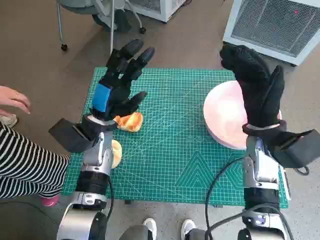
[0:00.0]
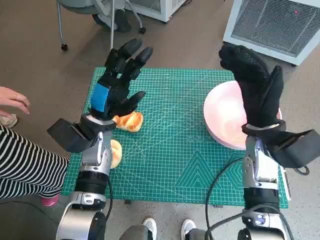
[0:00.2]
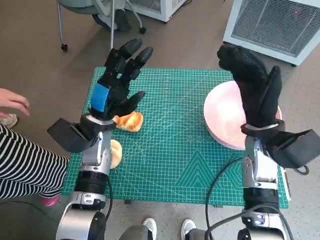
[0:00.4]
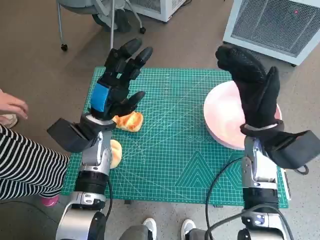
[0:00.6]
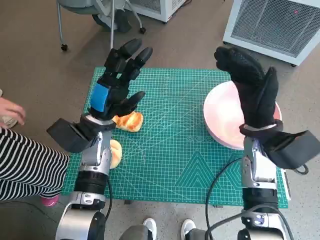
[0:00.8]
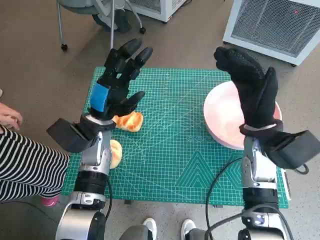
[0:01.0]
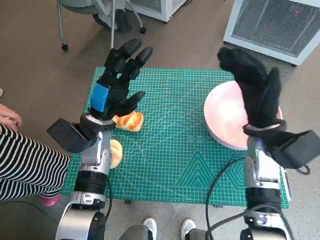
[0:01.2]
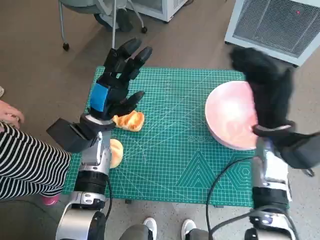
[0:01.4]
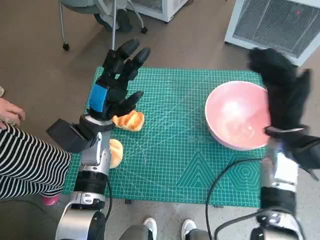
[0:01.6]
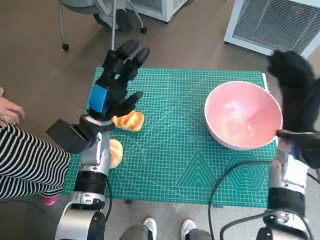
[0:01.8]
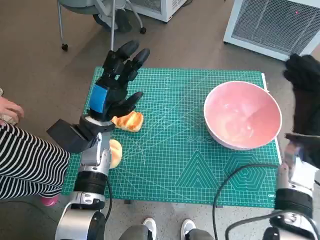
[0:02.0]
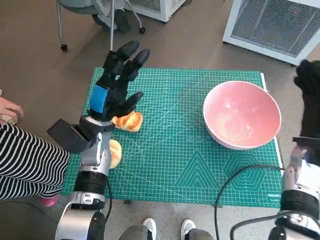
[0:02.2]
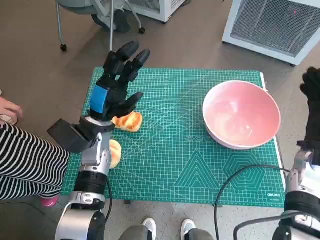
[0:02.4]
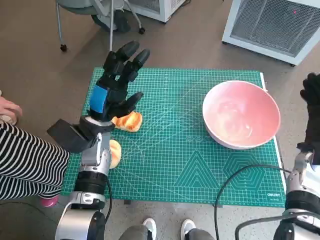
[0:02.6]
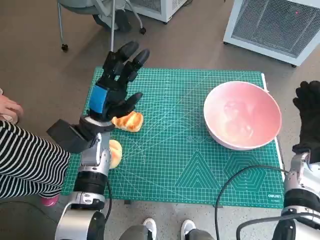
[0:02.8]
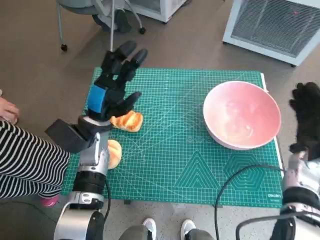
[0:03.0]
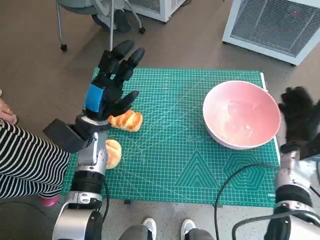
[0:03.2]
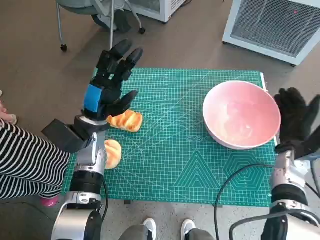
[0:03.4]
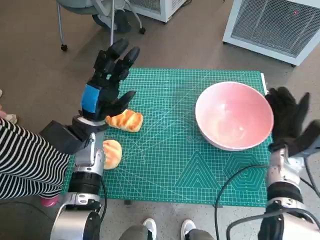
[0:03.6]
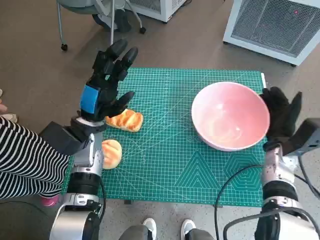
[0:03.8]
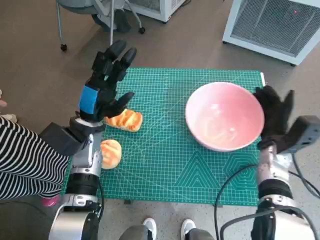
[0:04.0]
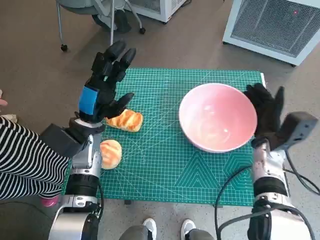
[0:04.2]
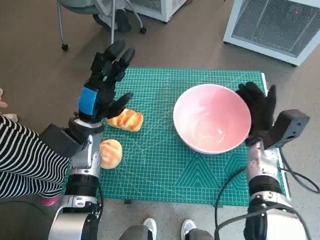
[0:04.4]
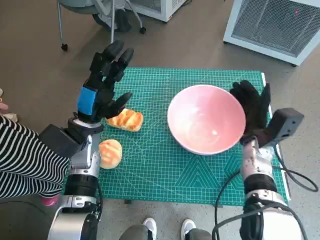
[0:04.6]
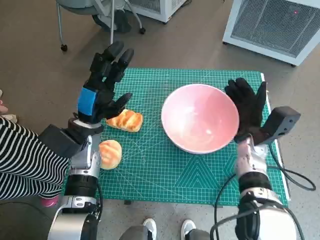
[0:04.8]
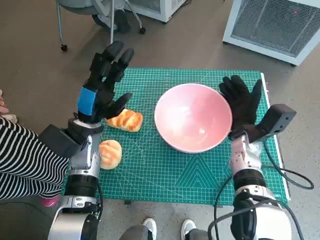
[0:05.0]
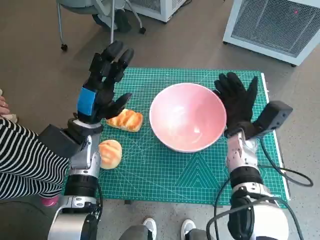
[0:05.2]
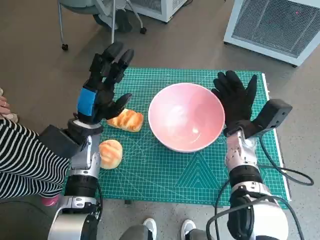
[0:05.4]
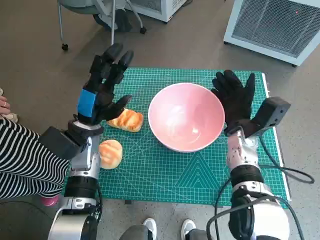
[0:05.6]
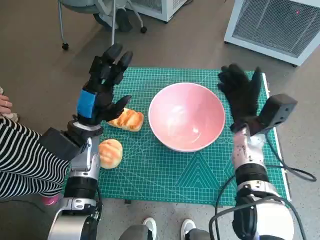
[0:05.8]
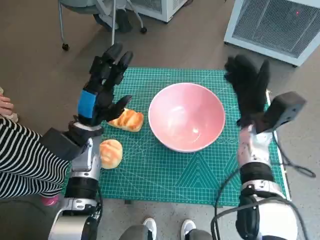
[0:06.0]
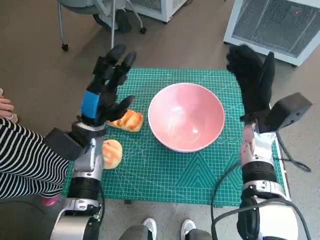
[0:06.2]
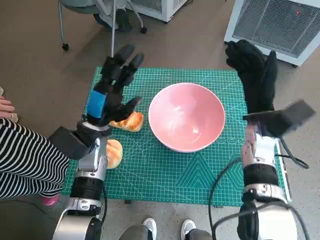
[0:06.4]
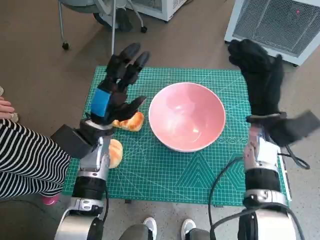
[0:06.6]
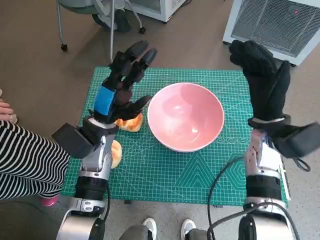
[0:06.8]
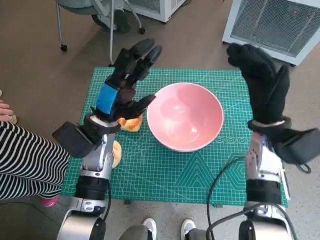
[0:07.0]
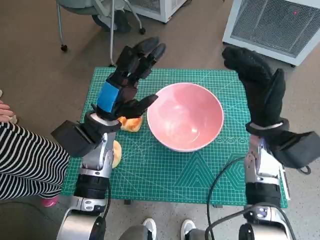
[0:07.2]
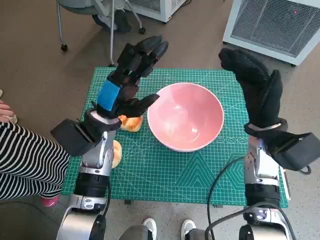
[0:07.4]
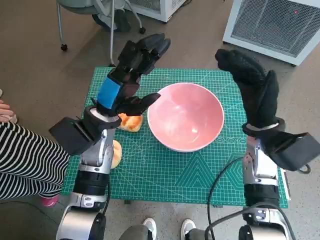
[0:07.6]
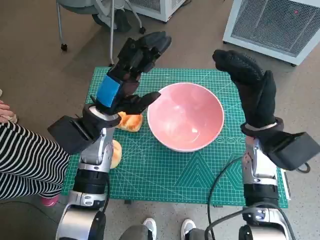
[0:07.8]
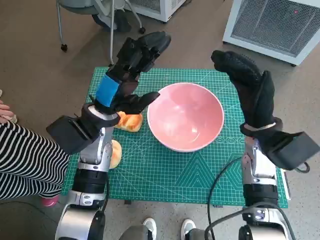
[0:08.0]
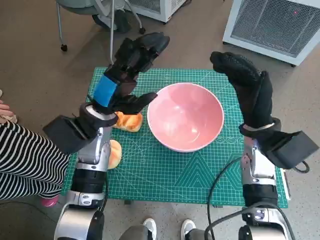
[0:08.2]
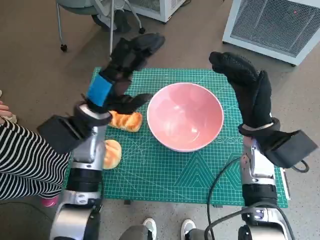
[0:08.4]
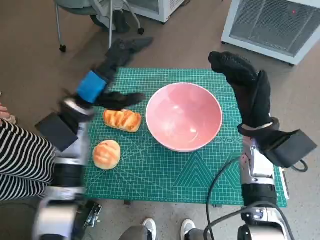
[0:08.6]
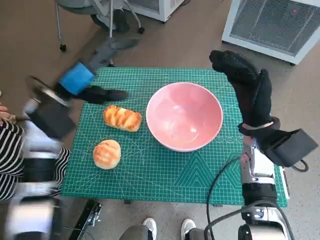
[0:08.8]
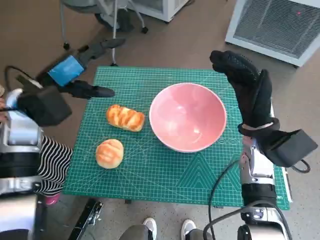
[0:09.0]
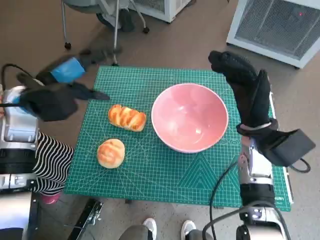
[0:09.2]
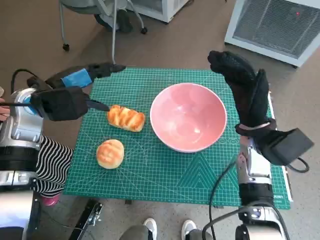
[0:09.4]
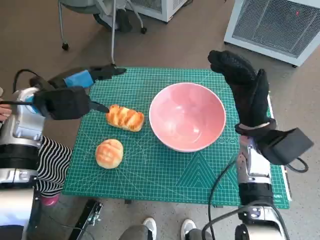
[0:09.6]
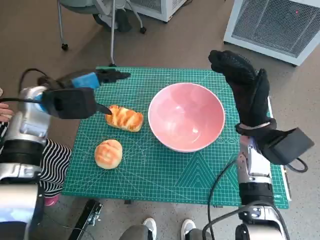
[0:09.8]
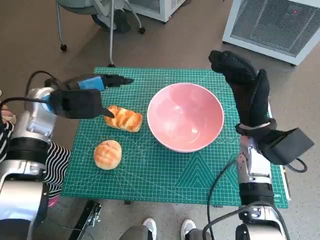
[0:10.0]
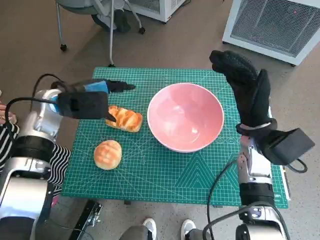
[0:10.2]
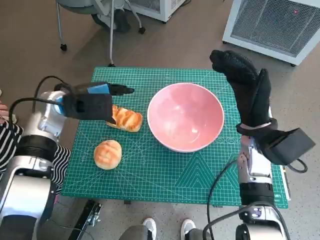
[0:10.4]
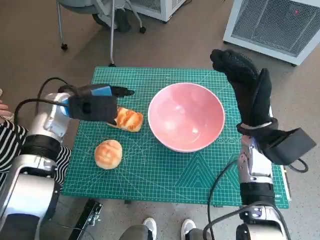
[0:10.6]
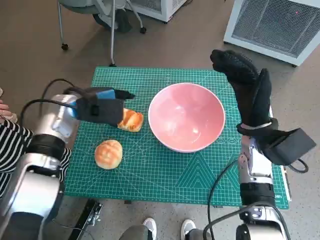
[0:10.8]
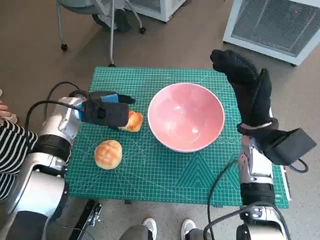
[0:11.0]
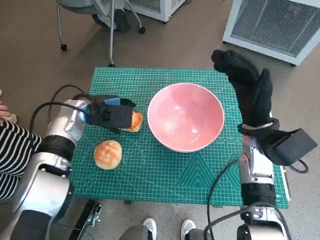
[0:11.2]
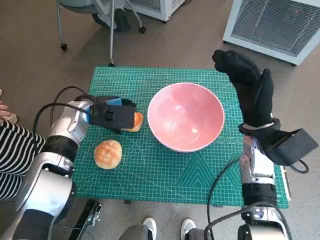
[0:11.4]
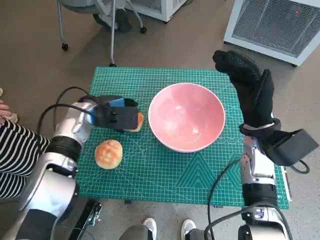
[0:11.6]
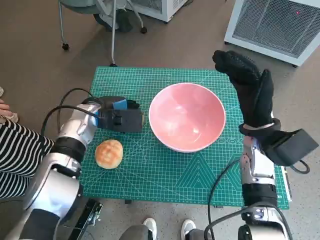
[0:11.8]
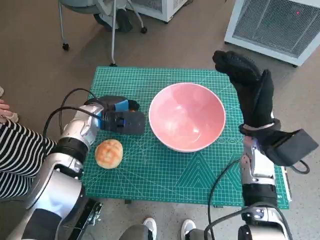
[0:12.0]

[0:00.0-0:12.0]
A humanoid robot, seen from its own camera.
Task of the whole recording: Push the bowl into the center of the table and put the bread into the bowl.
Step, 0:00.0 to 0:05.6: Move the pink bowl to the center of table with right hand.
0:01.6 to 0:03.0: The right hand shifts roughly 10 cm to the right and downward.
0:03.0 to 0:04.4: The right hand goes approximately 10 cm to the left.
0:04.4 to 0:06.0: The right hand moves some 5 cm.
0:06.0 to 0:07.6: The left hand moves roughly 5 cm; the right hand changes place by approximately 5 cm.
0:07.6 to 0:09.0: The left hand heads to the left and upward, covering approximately 10 cm.
0:09.0 to 0:10.4: The left hand ends up some 5 cm from where it was.
0:10.4 to 0:12.0: The left hand goes approximately 5 cm downward.

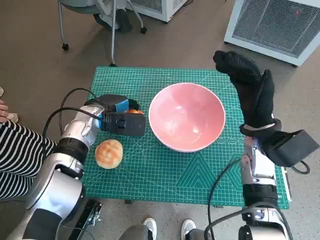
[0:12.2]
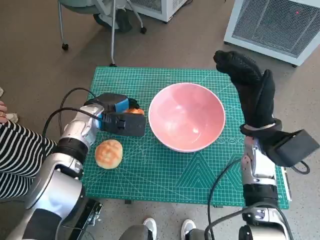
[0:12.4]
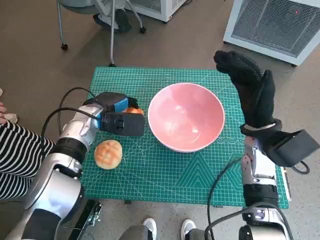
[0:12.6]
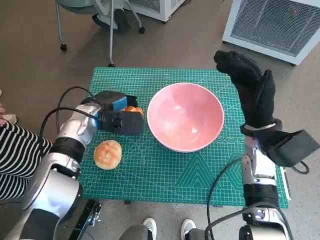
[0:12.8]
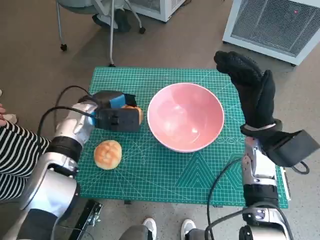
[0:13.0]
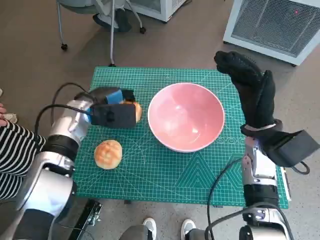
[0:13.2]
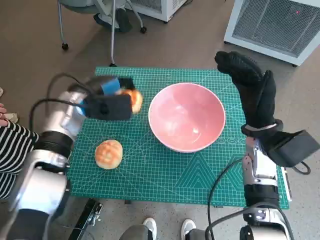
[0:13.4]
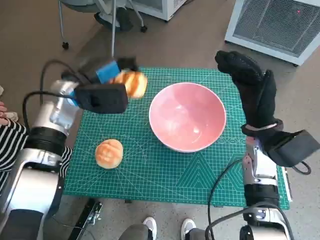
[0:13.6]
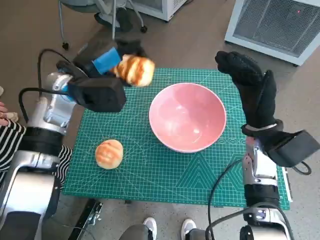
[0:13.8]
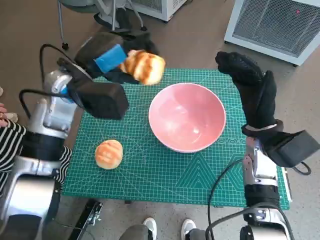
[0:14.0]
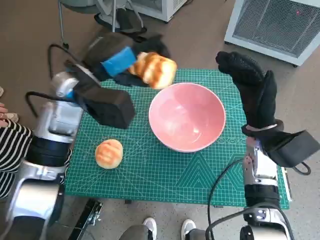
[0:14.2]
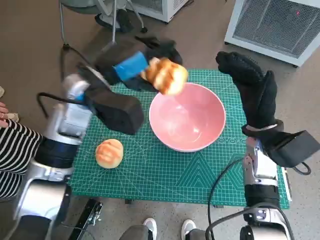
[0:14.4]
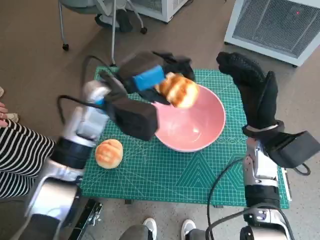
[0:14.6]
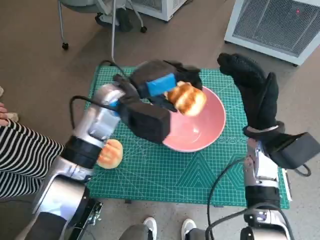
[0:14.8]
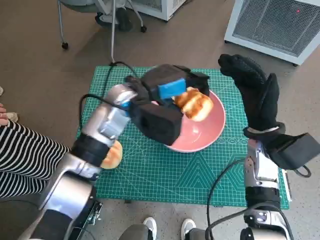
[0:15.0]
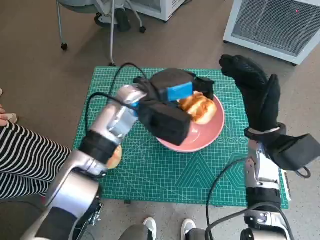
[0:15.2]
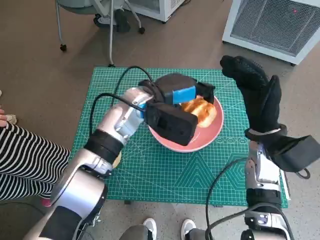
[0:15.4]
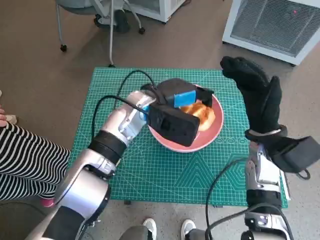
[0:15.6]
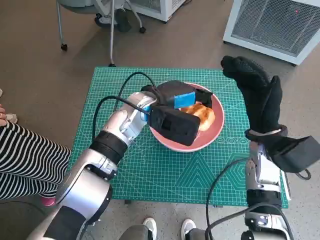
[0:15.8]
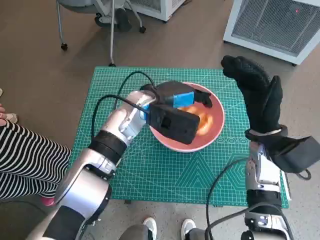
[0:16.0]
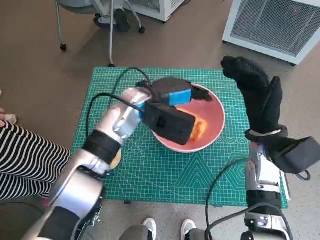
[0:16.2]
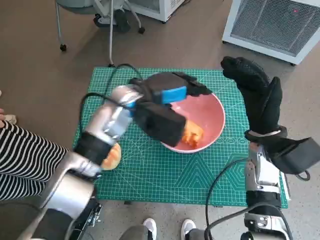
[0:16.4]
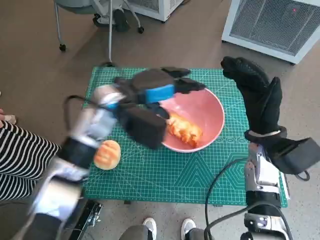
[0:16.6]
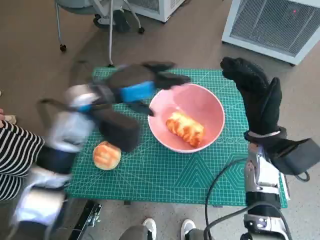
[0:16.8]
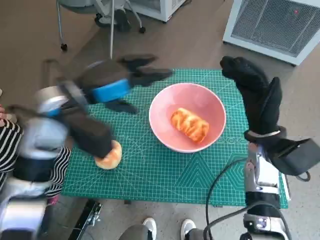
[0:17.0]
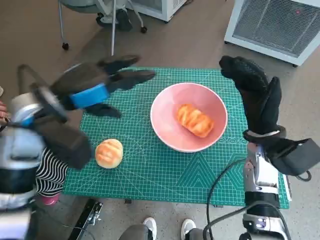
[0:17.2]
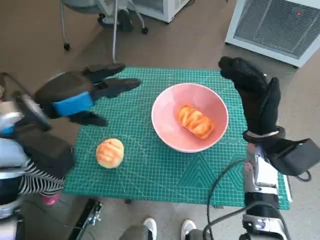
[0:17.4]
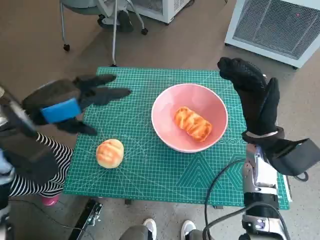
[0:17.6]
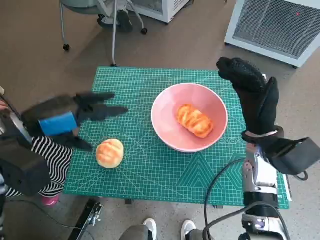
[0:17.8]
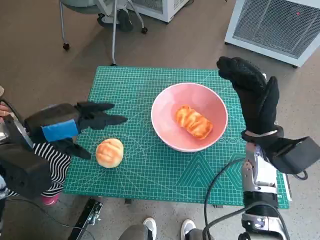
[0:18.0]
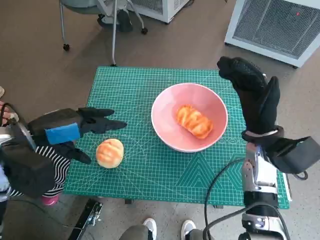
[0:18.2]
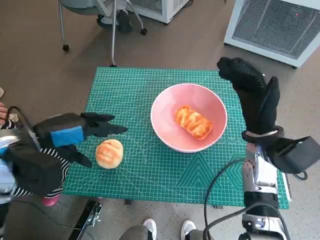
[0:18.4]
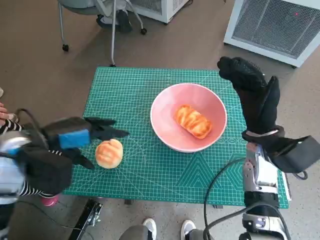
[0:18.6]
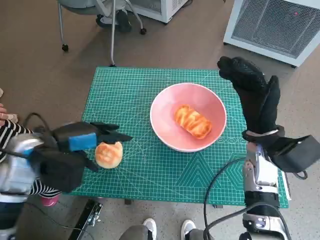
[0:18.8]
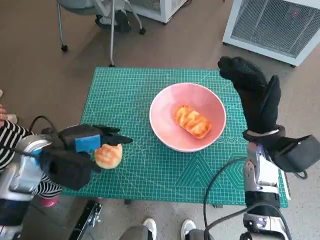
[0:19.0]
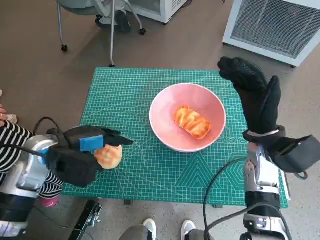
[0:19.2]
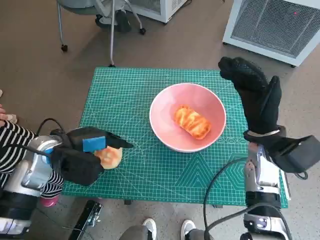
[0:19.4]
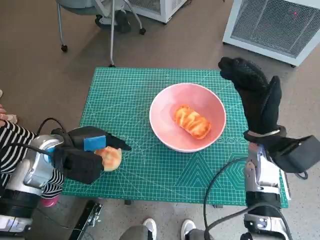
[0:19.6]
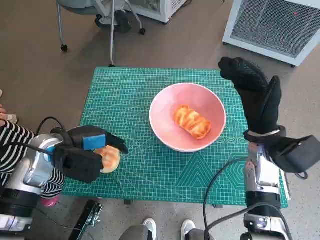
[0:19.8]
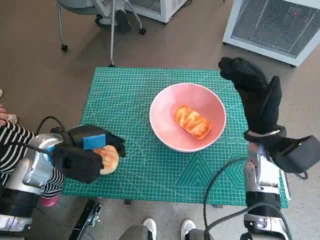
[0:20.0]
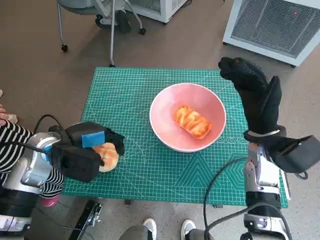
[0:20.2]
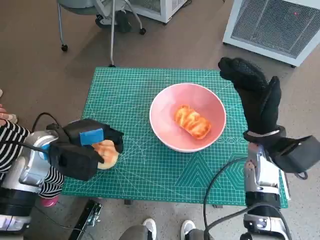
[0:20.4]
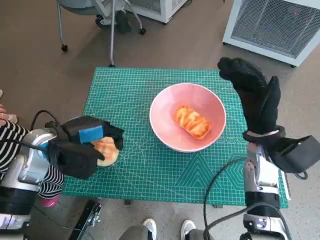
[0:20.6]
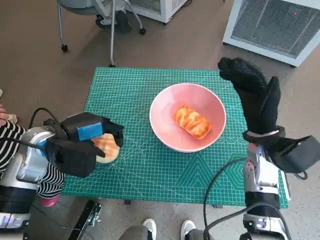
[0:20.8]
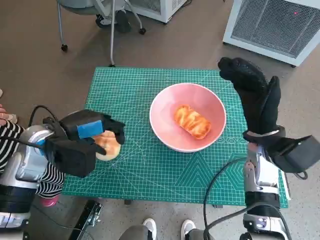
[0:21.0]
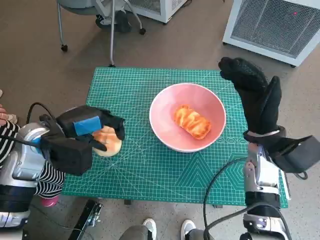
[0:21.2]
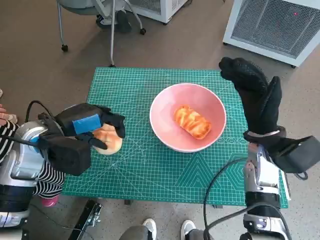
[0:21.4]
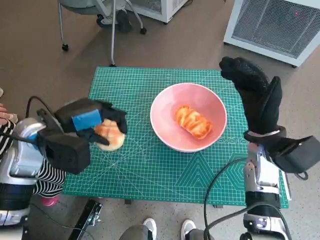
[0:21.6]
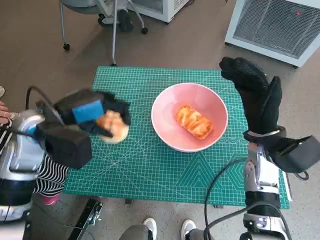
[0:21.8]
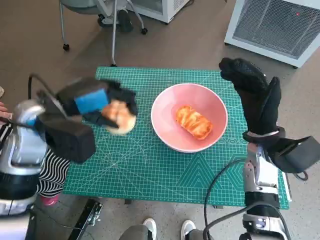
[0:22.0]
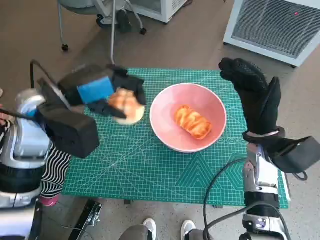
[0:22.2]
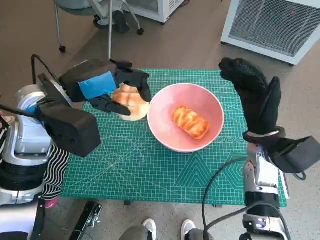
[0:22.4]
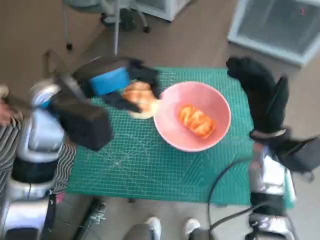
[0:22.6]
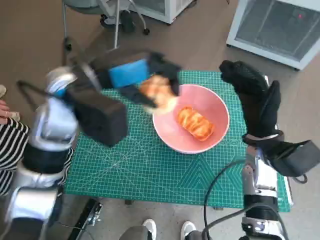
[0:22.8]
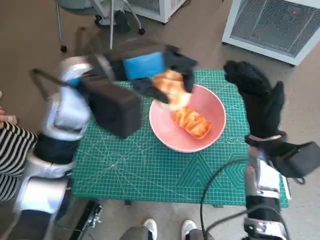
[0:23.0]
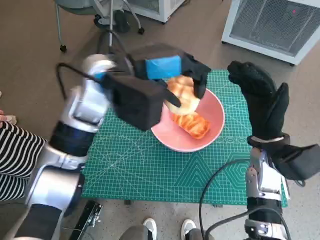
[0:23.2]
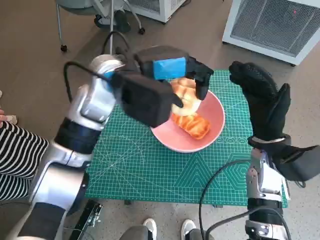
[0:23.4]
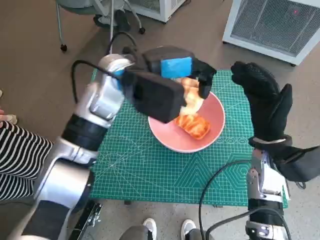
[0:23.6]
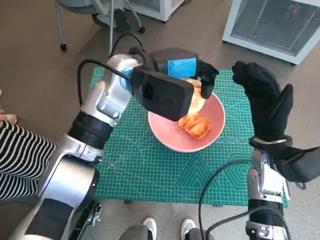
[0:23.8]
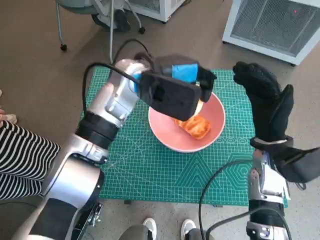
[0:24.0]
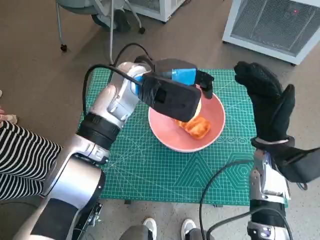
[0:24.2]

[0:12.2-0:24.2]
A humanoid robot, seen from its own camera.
Task of the whole recording: Push the bowl into the center of the table and put the bread into the bowl.
Step, 0:12.4 to 0:16.6: Place the long bread in pink bowl with left hand.
Step, 0:16.8 to 0:20.0: Grasp the round bread with left hand.
0:12.2 to 0:13.8: The left hand goes about 10 cm upward.
0:13.8 to 0:15.2: The left hand moves to the right, roughly 10 cm.
0:16.6 to 0:18.2: The left hand shifts about 20 cm to the left and backward.
0:18.2 to 0:19.8: The left hand travels downward by roughly 10 cm.
0:19.8 to 0:21.2: The hands stay close to where they were, moving slightly.
0:21.2 to 0:22.6: The left hand moves upward and to the right, approximately 10 cm.
0:22.6 to 0:24.2: The left hand travels to the right and forward by roughly 15 cm.
